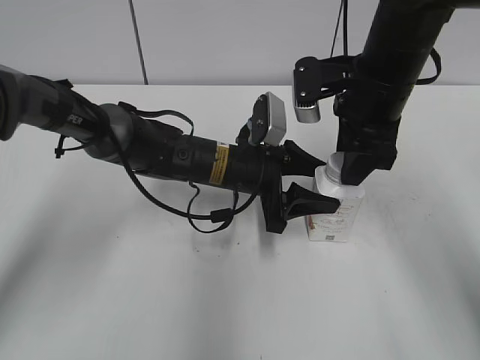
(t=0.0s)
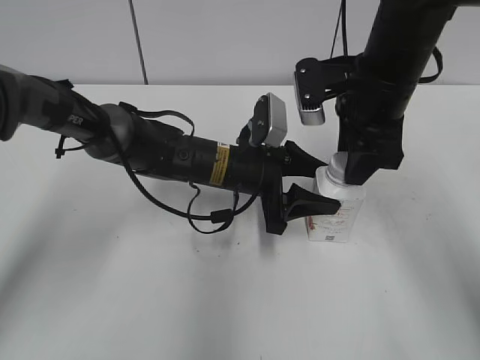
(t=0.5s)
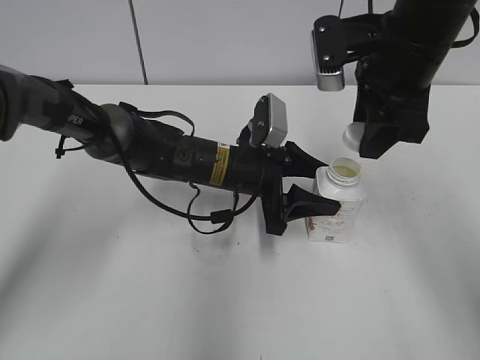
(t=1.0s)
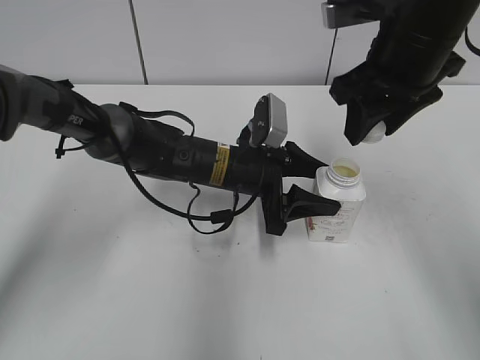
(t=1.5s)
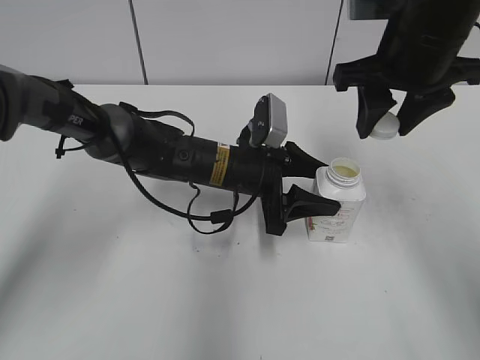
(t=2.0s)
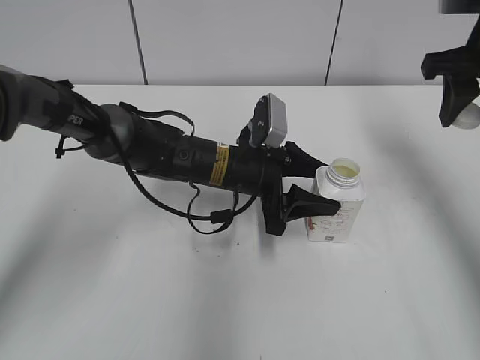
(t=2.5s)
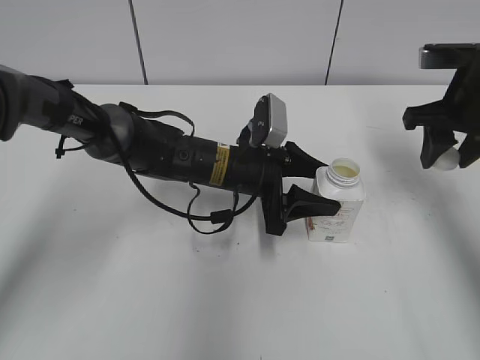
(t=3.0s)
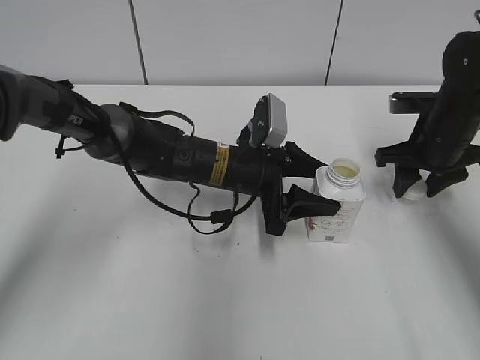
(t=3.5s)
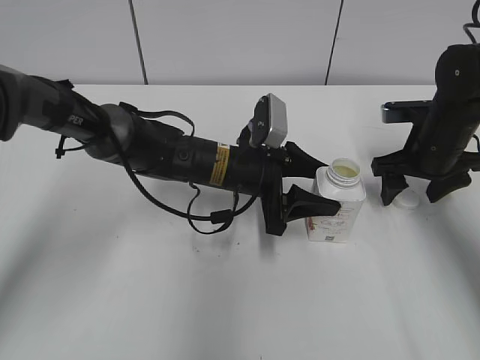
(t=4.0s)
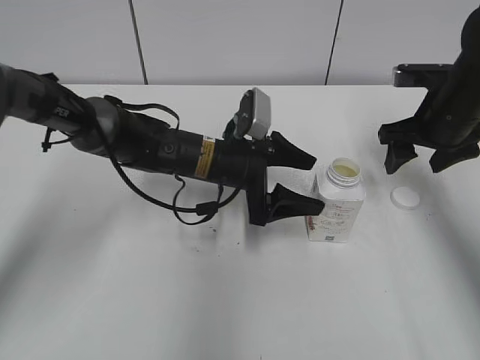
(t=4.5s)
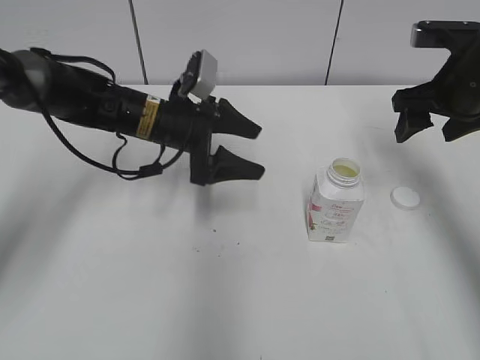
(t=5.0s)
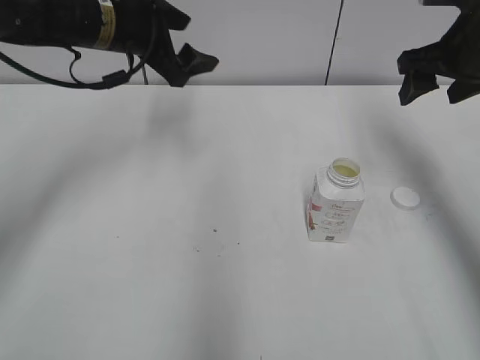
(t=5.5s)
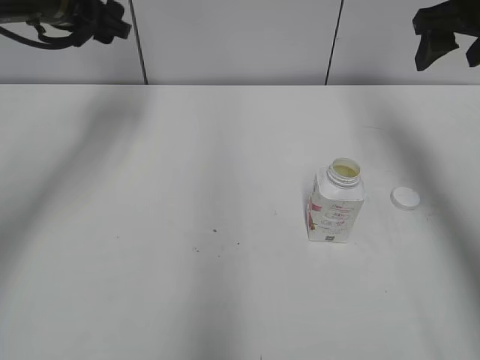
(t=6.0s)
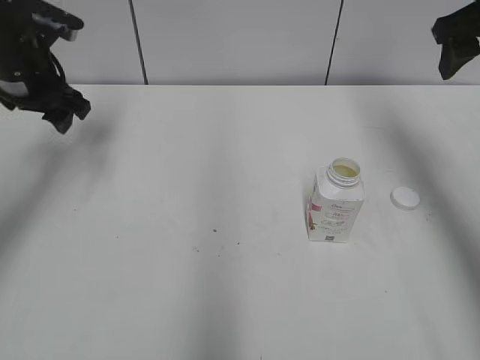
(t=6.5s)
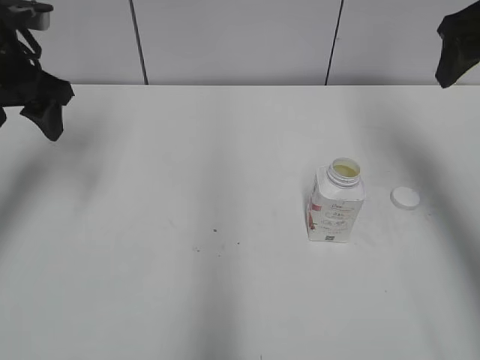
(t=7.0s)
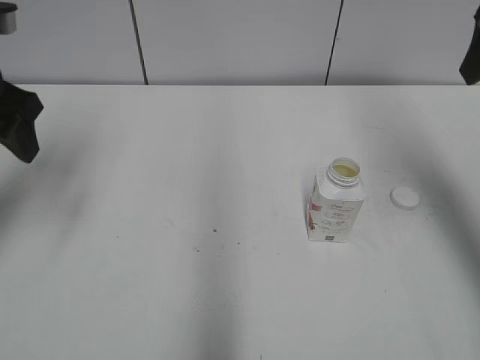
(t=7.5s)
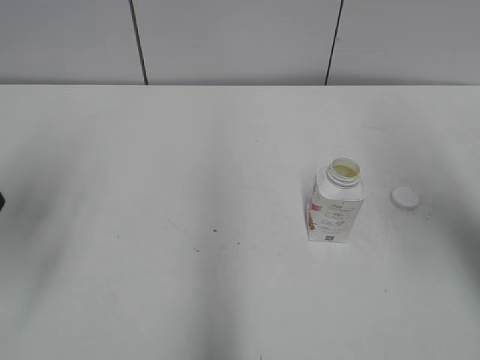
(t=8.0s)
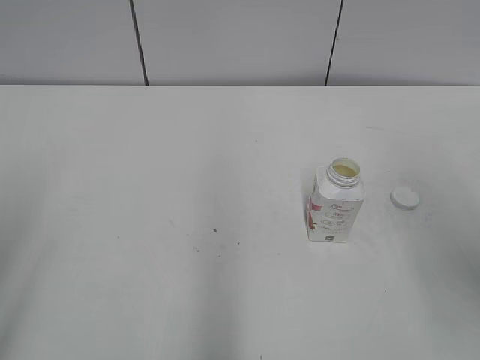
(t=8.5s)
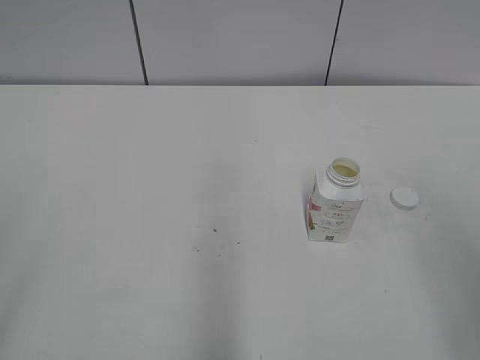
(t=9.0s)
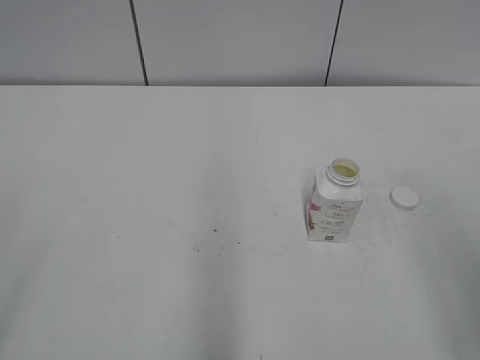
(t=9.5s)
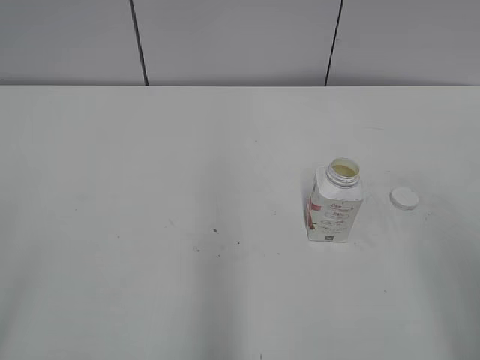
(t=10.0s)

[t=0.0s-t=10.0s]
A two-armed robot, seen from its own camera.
Step, t=1.0s to t=4.0s: Place the bottle cap on the right.
t=0.0s to t=2.0s: The right gripper goes about 5 cm upward.
t=2.0s to t=4.0s: The right gripper moves downward and to the right, some 20 cm, and opens.
t=4.0s to t=6.0s: The right gripper shifts approximately 20 cm upward; the left gripper is displaced to the left, upward and forward by roughly 30 cm, and opens.
t=6.0s to t=8.0s: The two grippers go some 20 cm backward.
t=8.0s to t=10.0s: The two grippers go approximately 20 cm backward.

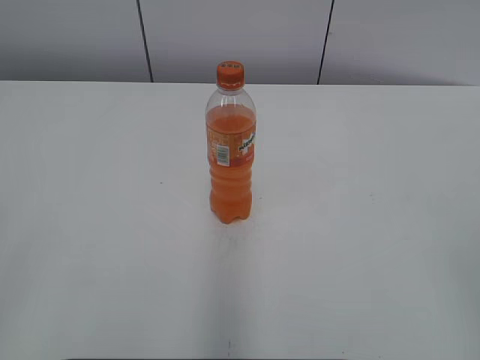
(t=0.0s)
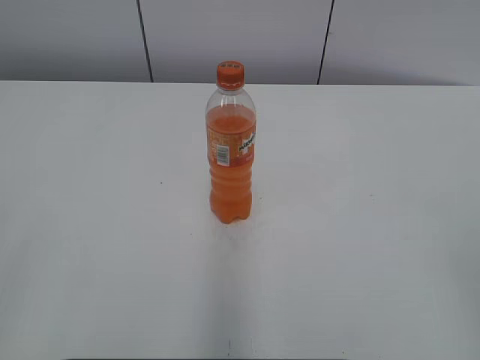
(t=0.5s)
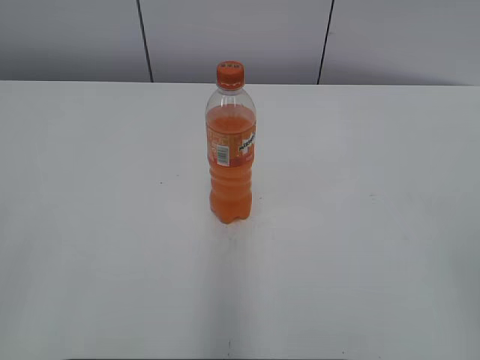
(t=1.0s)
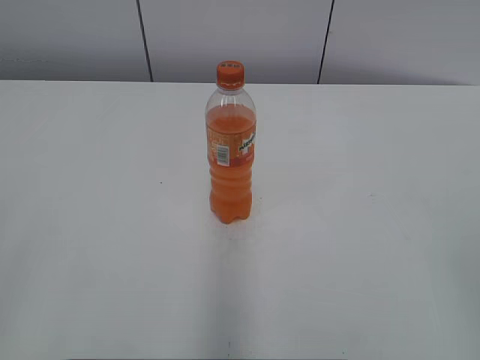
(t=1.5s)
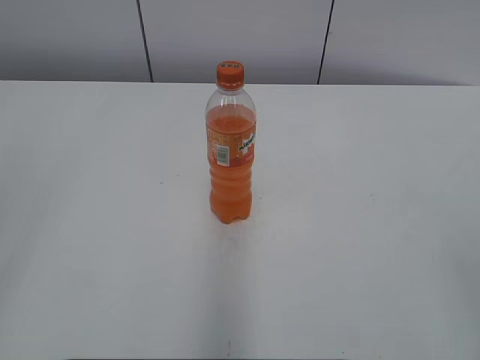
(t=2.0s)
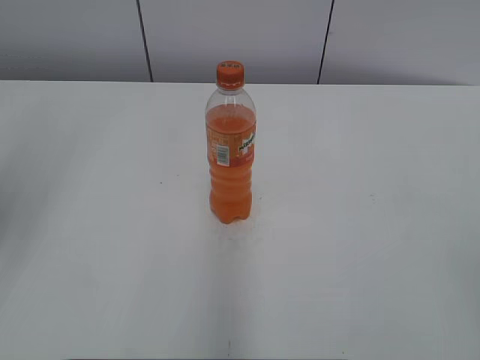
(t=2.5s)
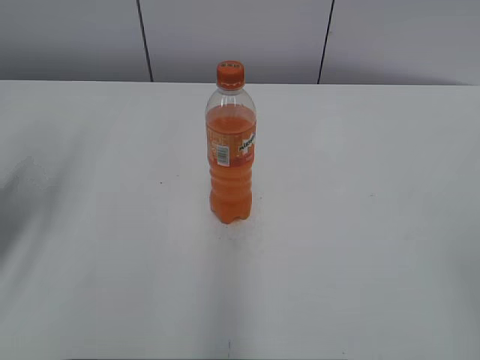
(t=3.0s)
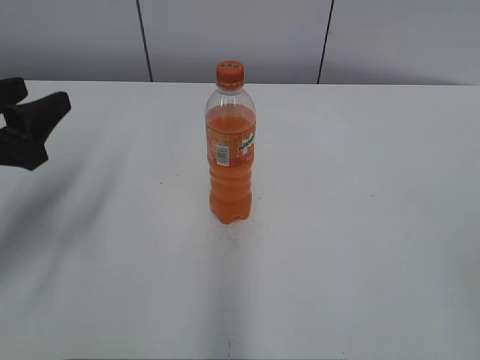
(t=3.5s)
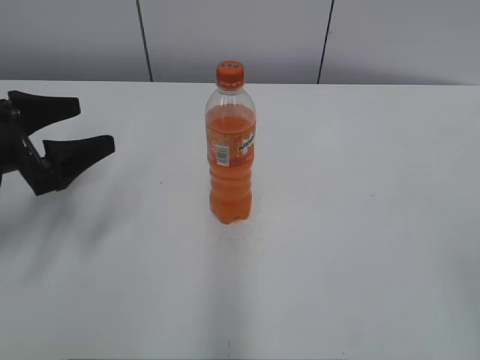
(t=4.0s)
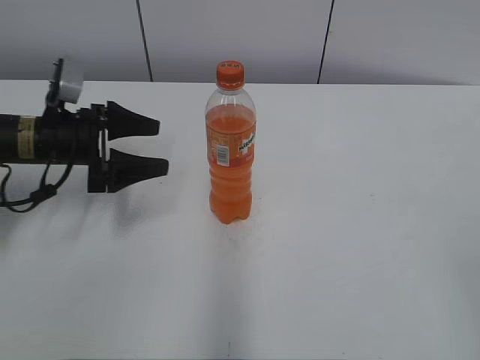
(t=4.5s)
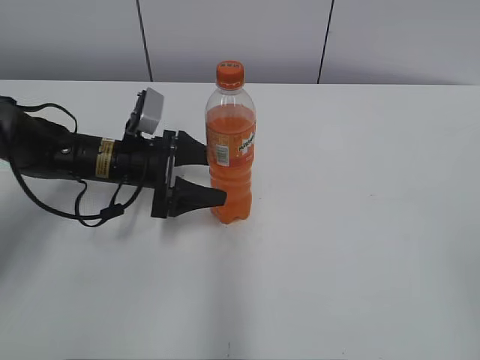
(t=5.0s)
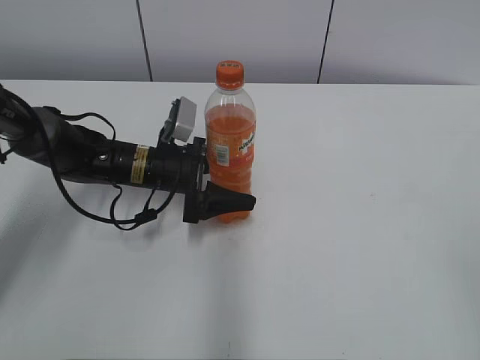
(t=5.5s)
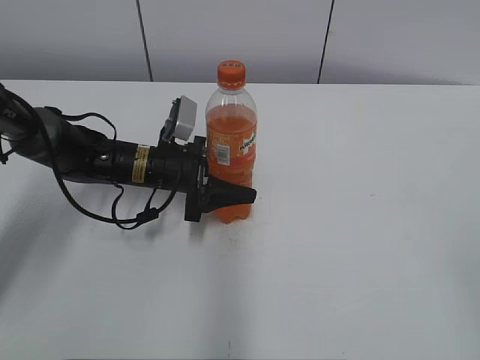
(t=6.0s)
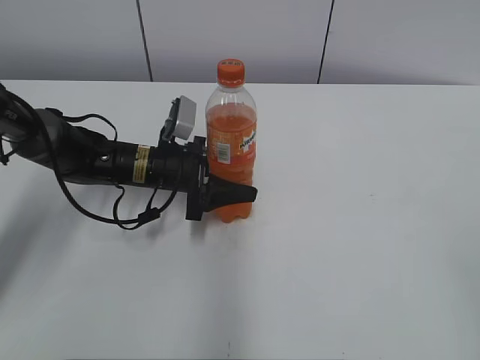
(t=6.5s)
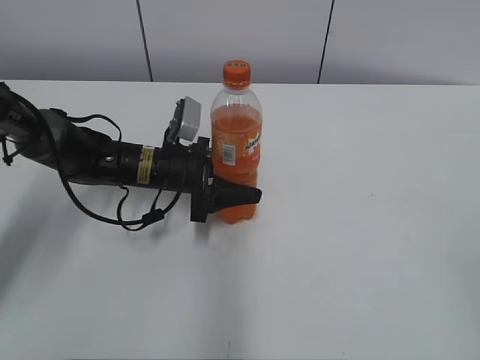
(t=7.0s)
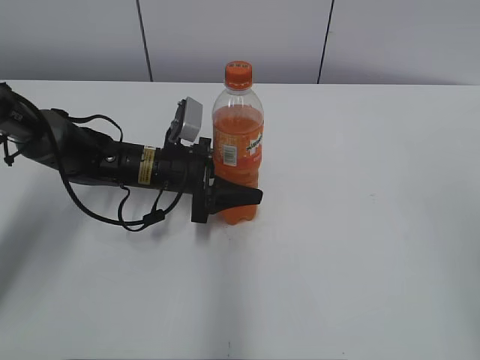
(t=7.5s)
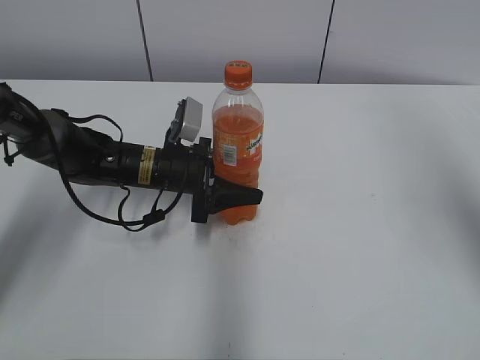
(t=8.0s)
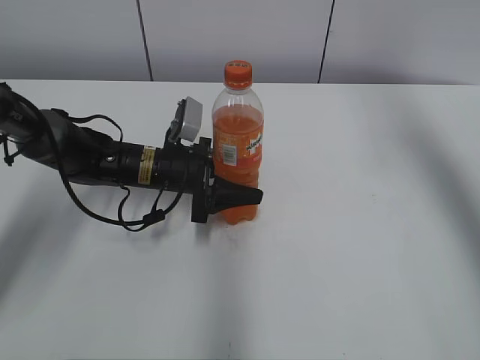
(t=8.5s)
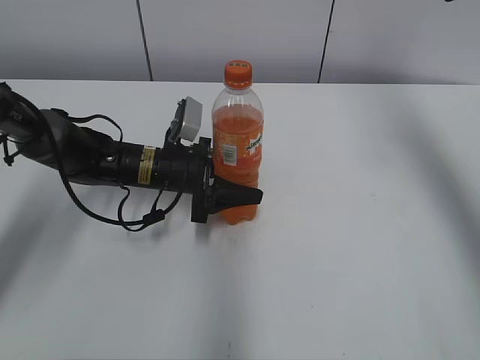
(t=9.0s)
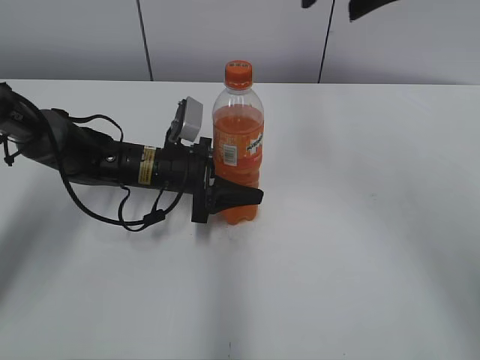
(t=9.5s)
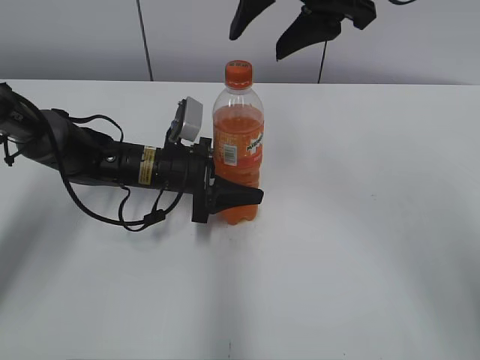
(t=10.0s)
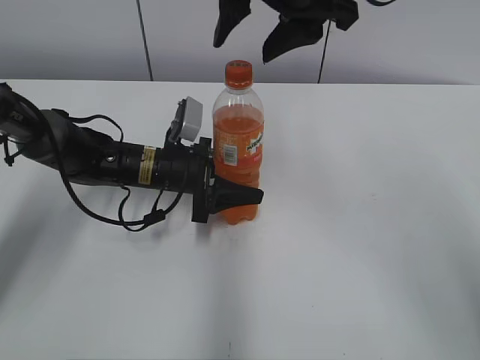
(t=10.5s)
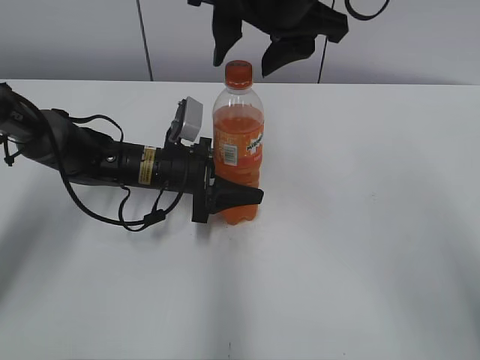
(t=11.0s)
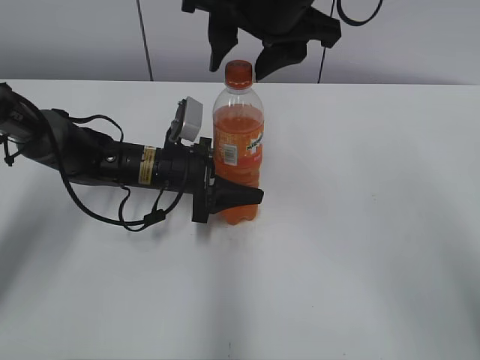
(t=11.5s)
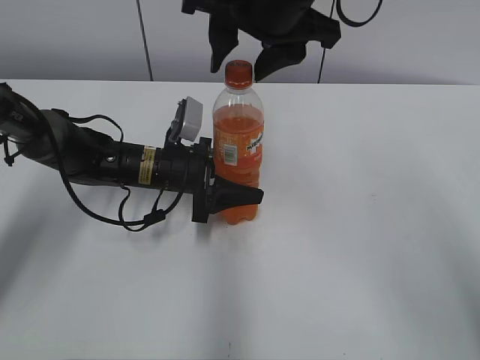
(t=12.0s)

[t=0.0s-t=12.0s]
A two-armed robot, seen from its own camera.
Step, t=0.0s to t=5.5s: Grab the Mirinda with the left hand.
t=2.0s to t=4.0s: The left gripper heads forward and downward, covering approximately 35 cm, and opens its fingers.
t=4.0s to t=6.0s: The left gripper travels to the right, forward and downward by approximately 20 cm, and closes.
t=6.0s to t=8.0s: The right gripper moves forward and upward, roughly 25 cm.
t=8.0s to t=10.0s: The right gripper shifts some 25 cm to the left and forward.
t=10.0s to t=12.0s: The right gripper moves about 5 cm.

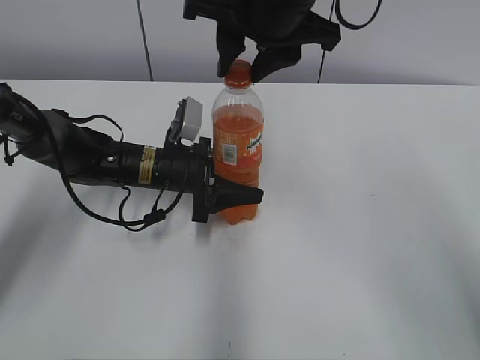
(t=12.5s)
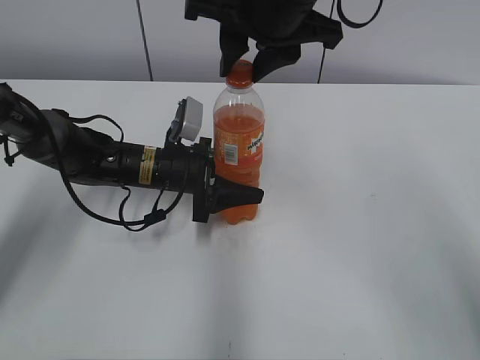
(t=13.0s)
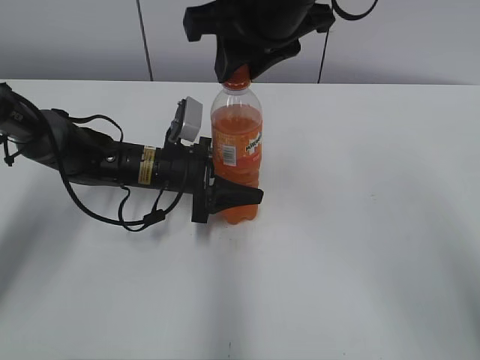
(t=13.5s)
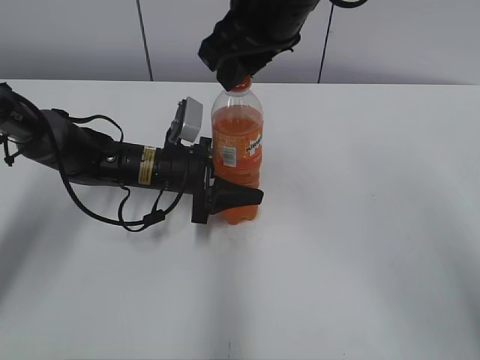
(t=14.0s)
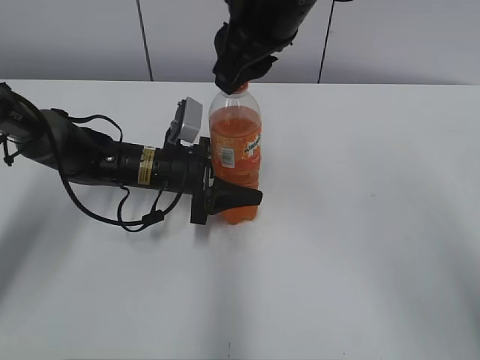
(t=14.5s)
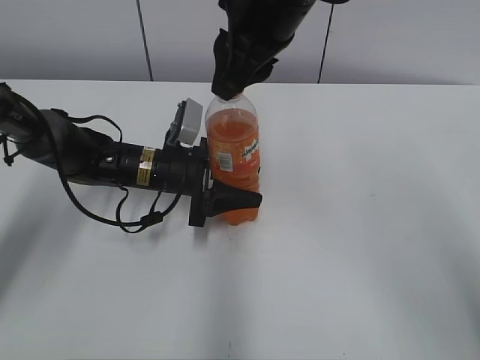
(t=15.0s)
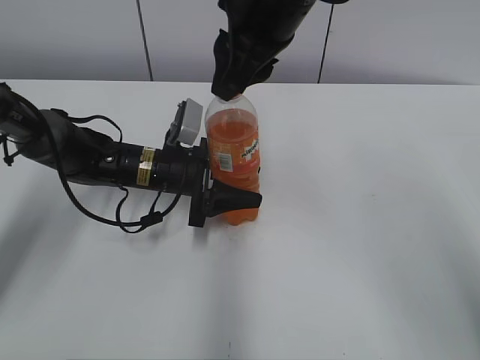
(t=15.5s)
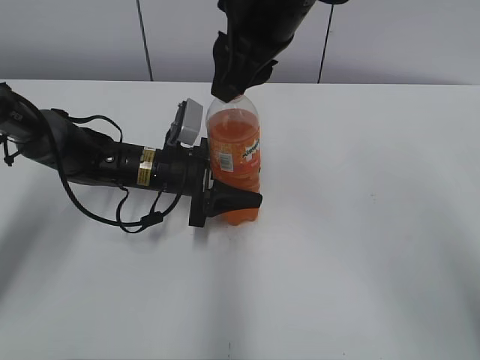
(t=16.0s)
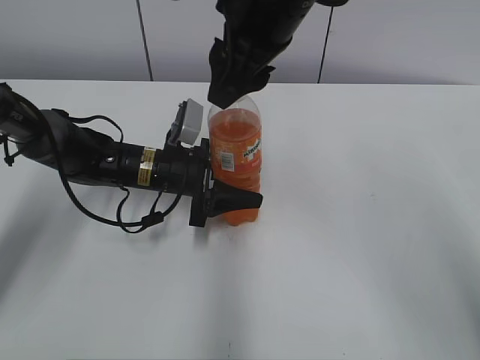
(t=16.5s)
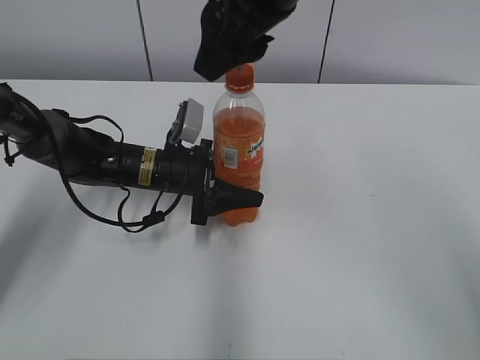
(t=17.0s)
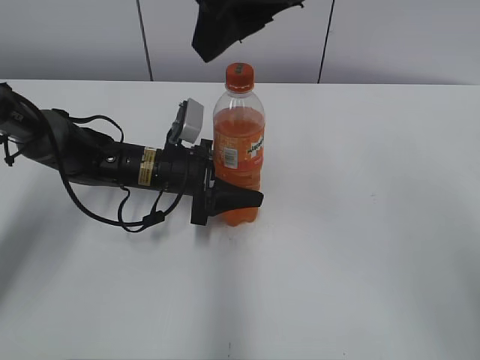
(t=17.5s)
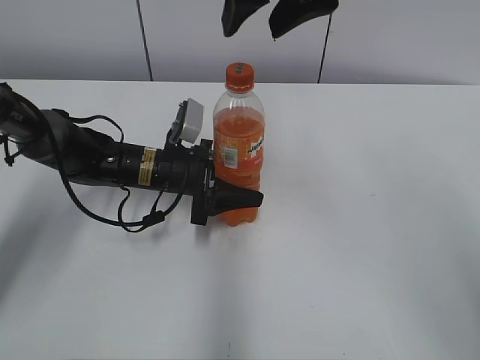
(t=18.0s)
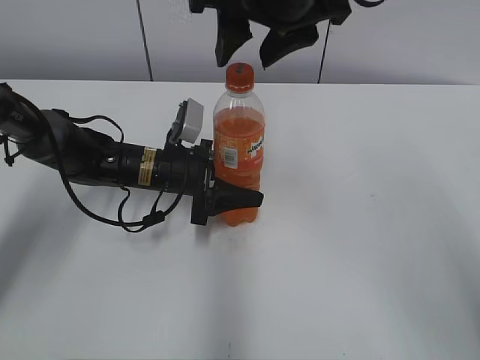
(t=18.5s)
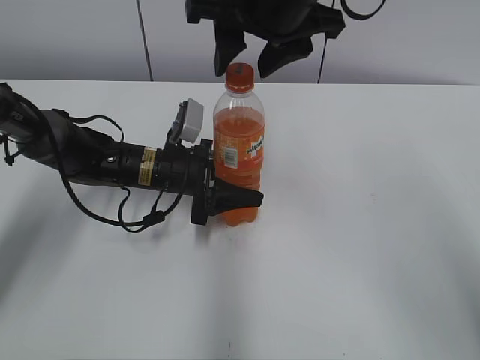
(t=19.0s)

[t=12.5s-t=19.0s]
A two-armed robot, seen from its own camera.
t=14.5s to t=17.0s: The right gripper opens its fingers.
